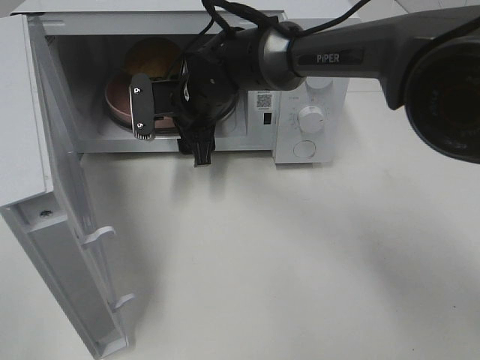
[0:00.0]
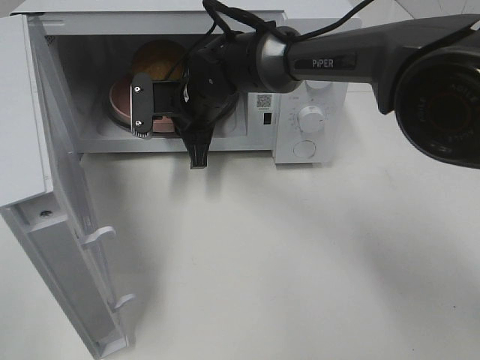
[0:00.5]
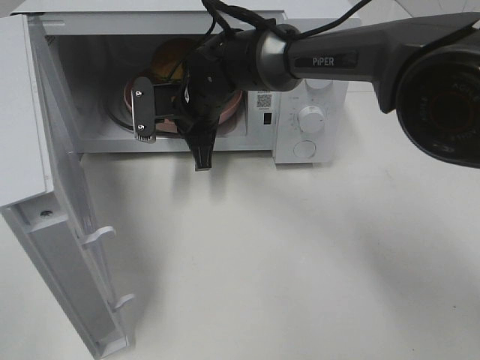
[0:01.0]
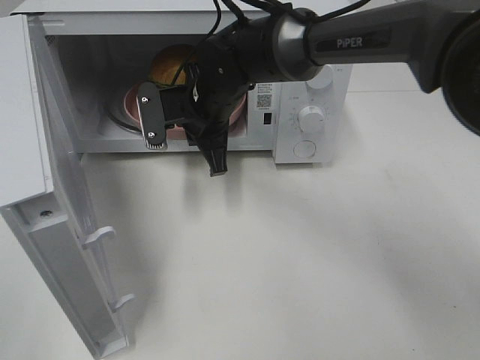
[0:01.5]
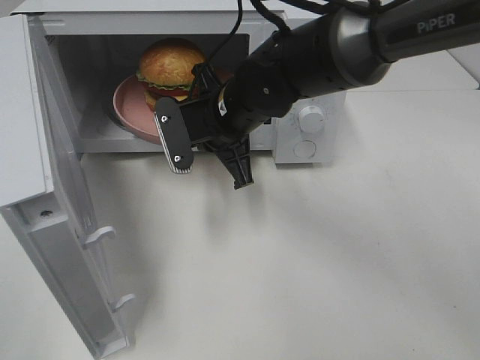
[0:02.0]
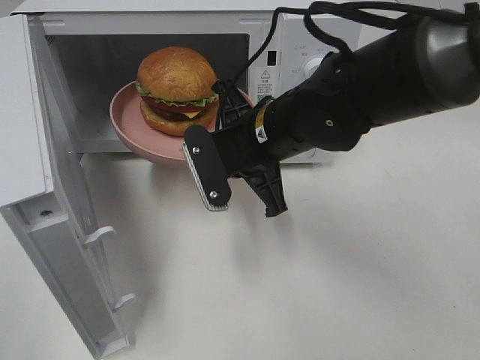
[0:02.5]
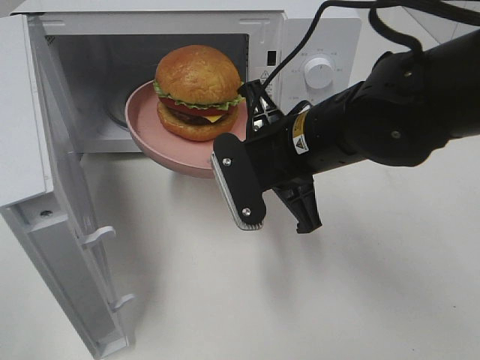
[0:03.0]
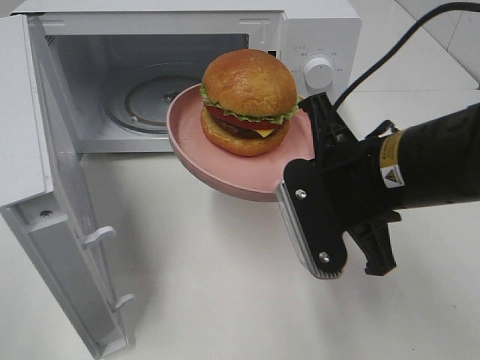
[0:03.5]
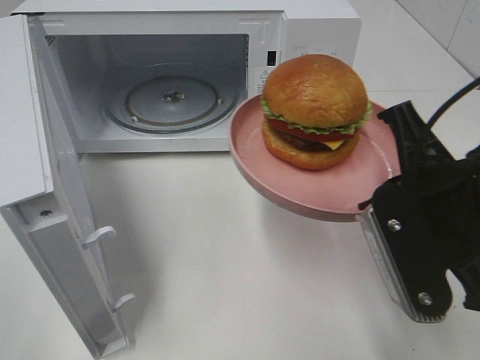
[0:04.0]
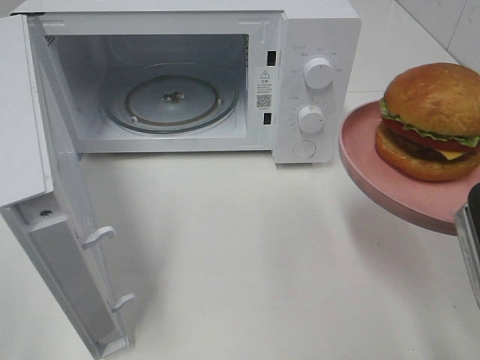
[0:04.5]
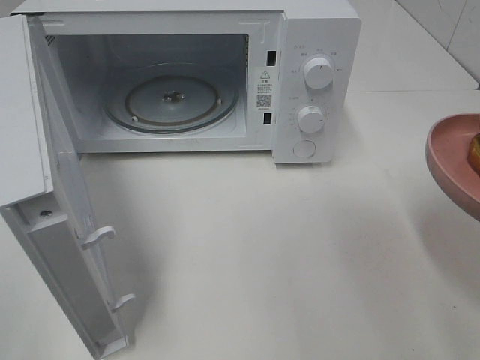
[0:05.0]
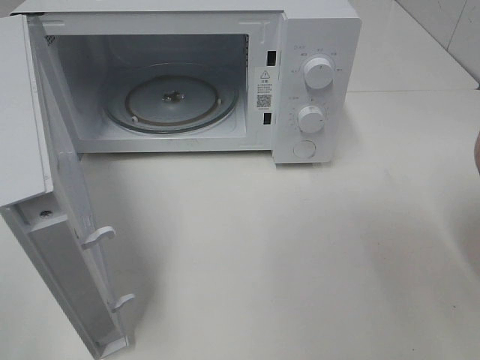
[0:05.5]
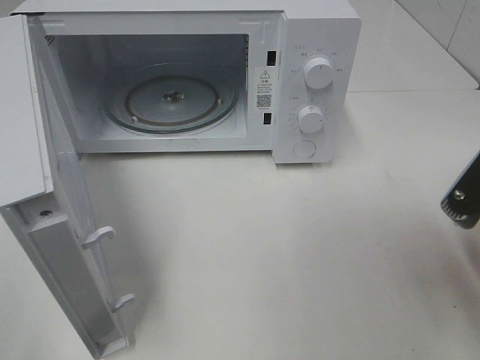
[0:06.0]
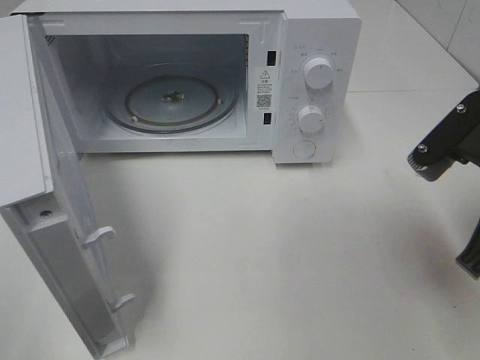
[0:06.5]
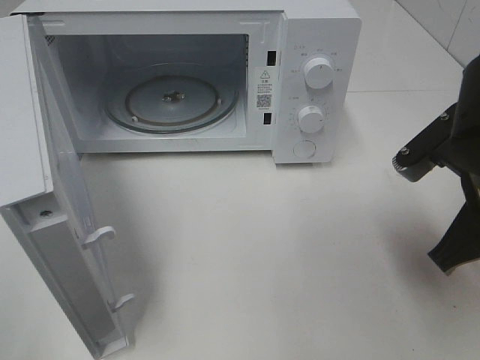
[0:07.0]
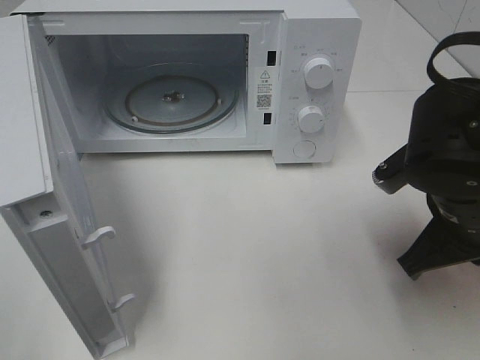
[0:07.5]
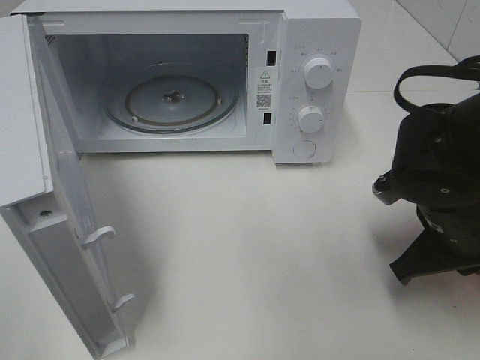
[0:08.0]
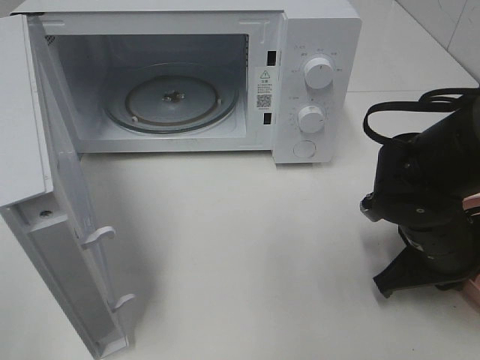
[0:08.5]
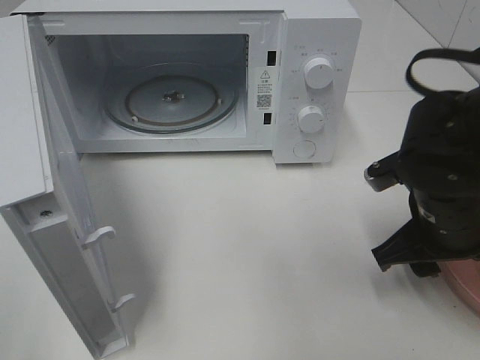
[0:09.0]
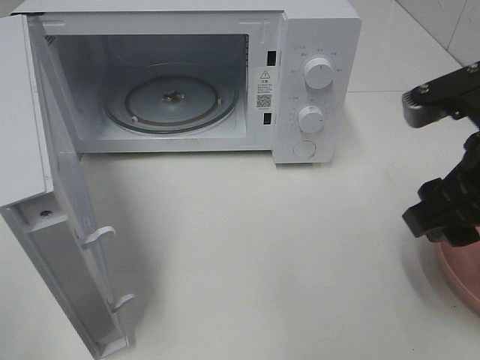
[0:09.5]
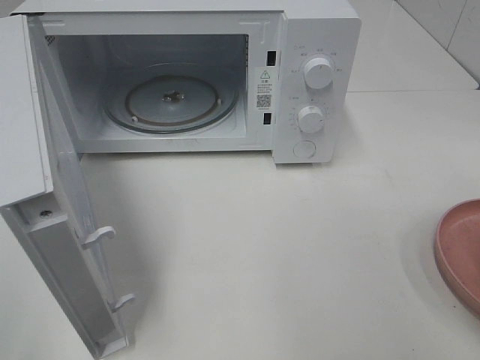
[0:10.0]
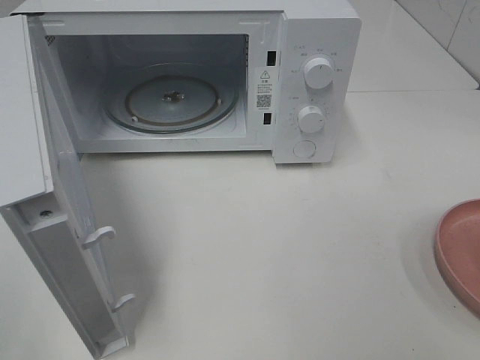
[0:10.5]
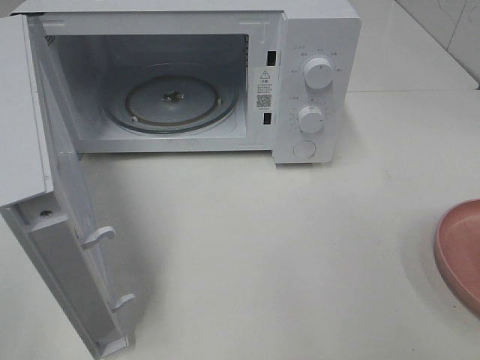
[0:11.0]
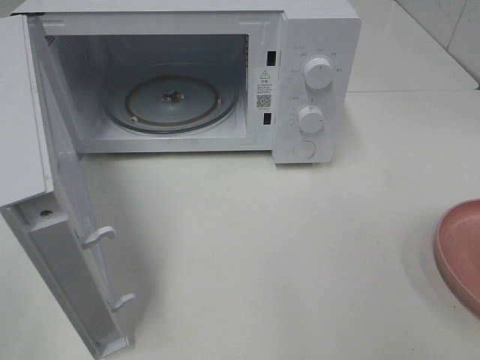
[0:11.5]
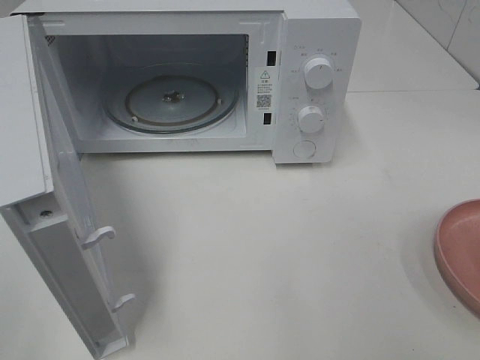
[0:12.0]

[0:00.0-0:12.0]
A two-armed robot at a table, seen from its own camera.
Task of the whole recording: Heat the burger.
Step, 0:01.0 to 0:08.5: Right hand: place the plate on the table.
0:00.0 to 0:02.0: The right gripper shifts approximately 5 cm backward, and closes up.
0:02.0 to 0:04.0: The right gripper shifts about 25 cm backward and to the right.
0:04.0 to 0:06.0: The right gripper goes some 5 cm to the right.
0:06.0 to 0:08.0: The right gripper goes about 10 cm downward and forward.
0:08.0 to 0:10.0: The right gripper is displaced upward and backward by roughly 25 cm, and opens its fingers.

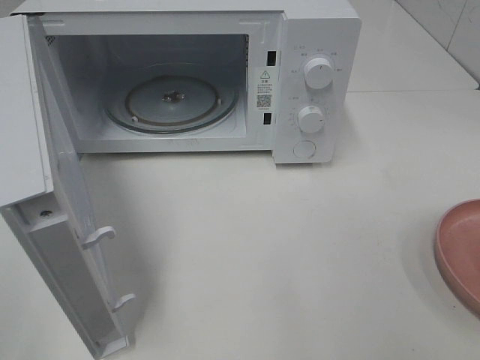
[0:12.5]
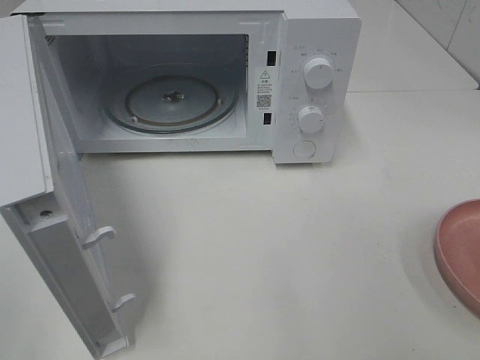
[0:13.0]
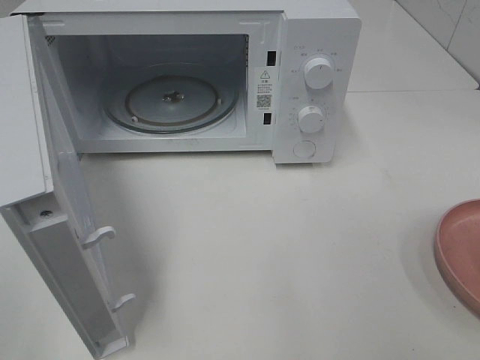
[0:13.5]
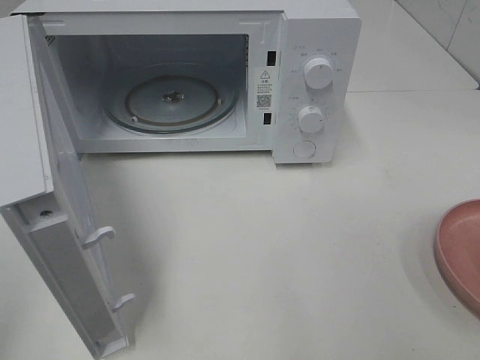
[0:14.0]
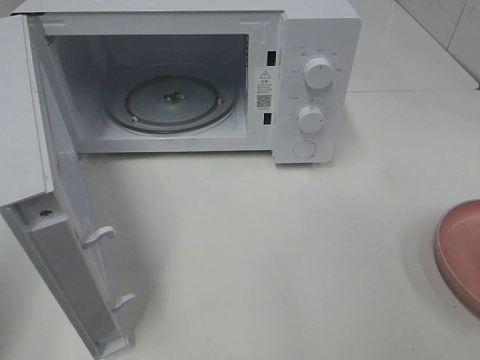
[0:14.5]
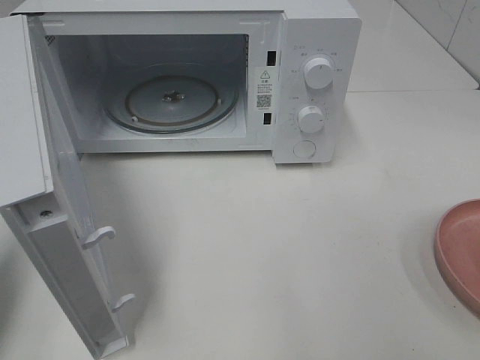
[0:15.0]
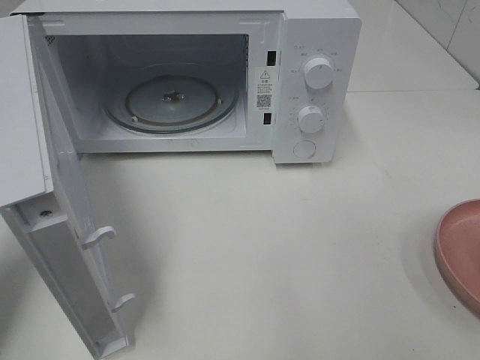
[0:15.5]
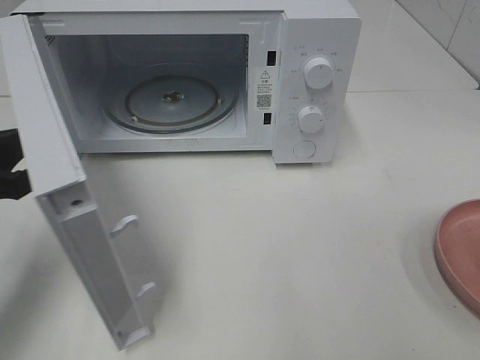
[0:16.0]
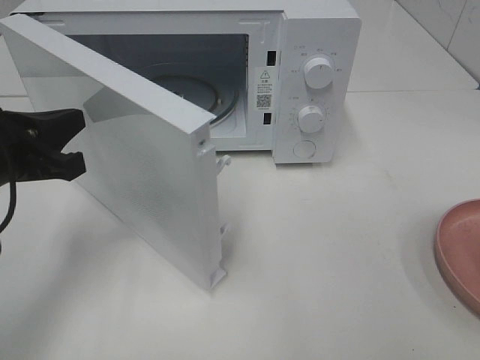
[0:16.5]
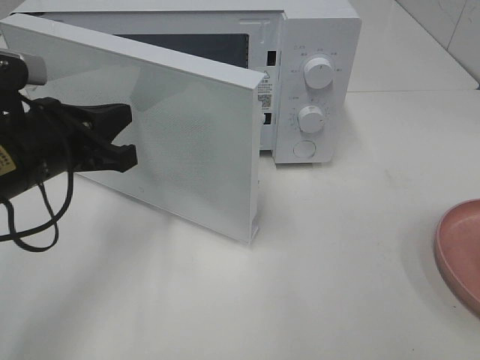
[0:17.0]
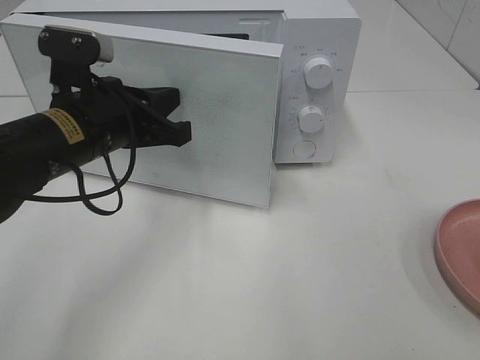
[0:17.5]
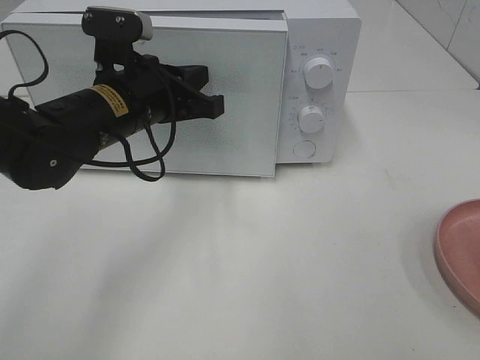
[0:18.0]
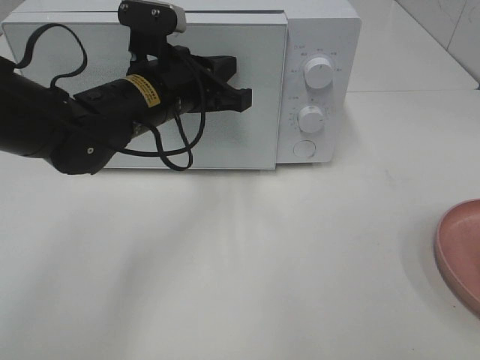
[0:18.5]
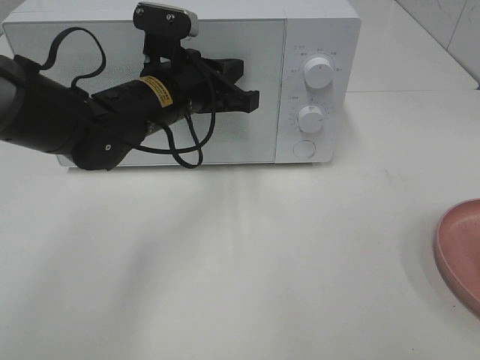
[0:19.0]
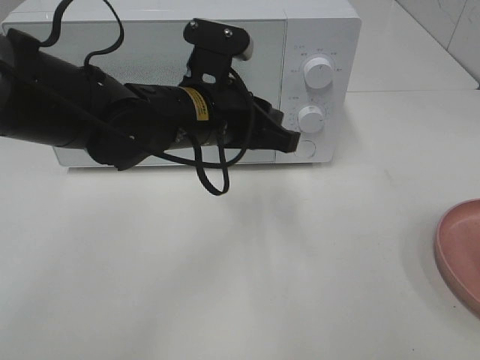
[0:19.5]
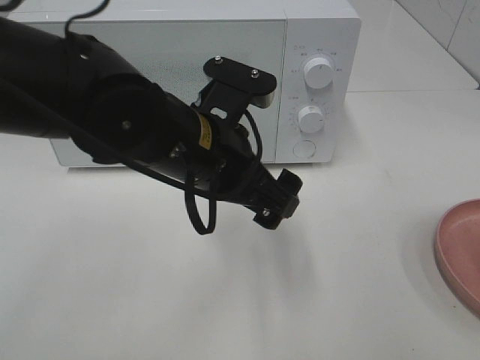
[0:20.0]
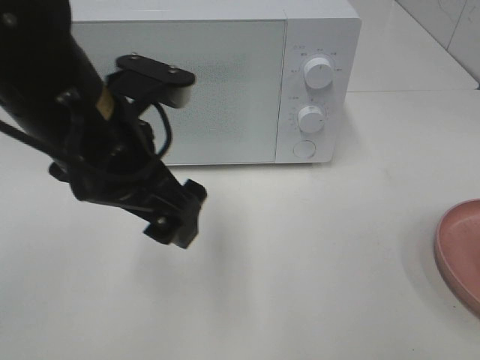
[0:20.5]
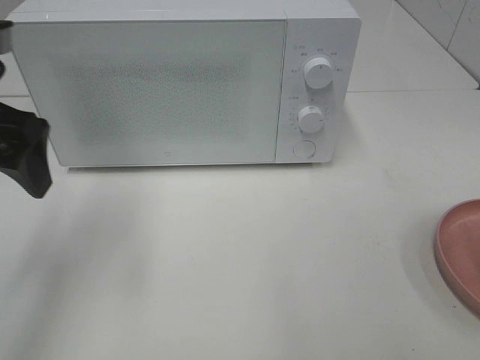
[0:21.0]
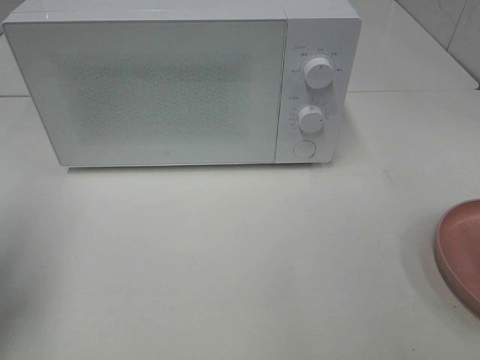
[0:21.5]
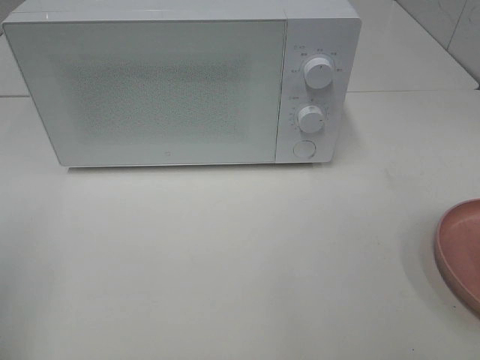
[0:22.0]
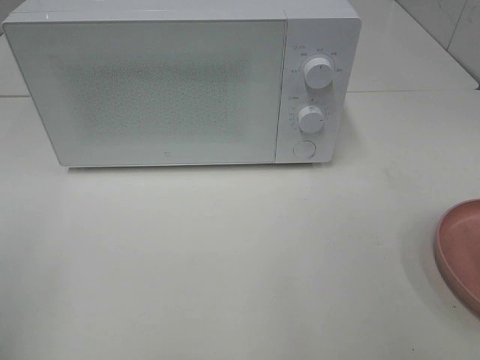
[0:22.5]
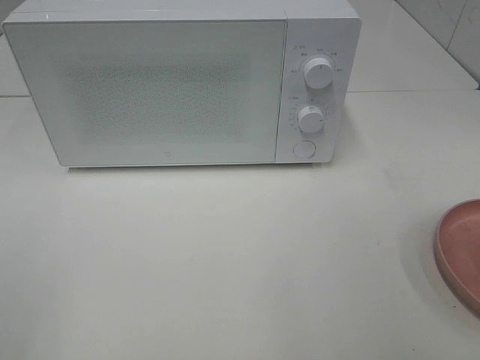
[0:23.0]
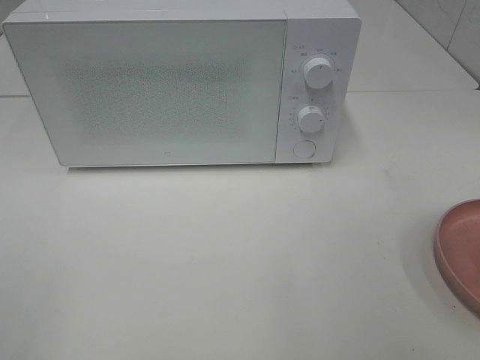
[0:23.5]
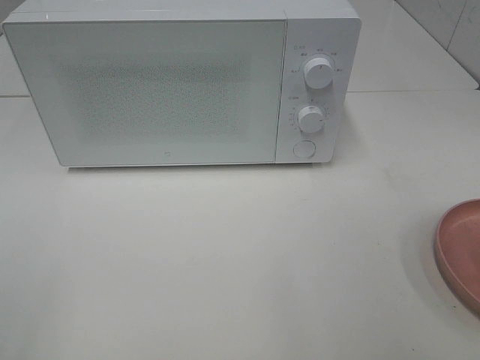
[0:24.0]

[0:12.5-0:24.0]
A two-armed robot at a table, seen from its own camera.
Task of the whole recording: Heat the burger.
Step, 0:12.5 to 0:19.0: Left hand: close the microwave door.
0:14.5 to 0:16.5: The left gripper is displaced forward, downward and to the right by about 20 cm.
0:16.5 to 0:18.5: The left gripper heads to the right and forward, covering roughly 20 cm.
0:18.5 to 0:20.0: The left gripper travels backward by approximately 10 cm, and opens up.
0:20.0 to 0:22.0: The left gripper is displaced to the left and backward by roughly 30 cm.

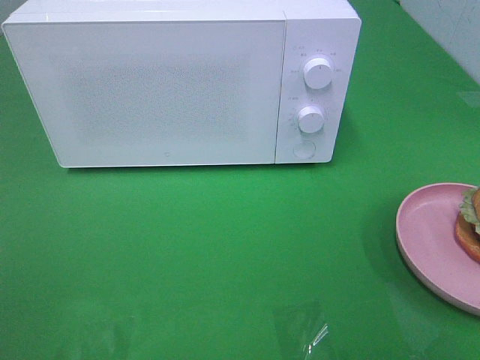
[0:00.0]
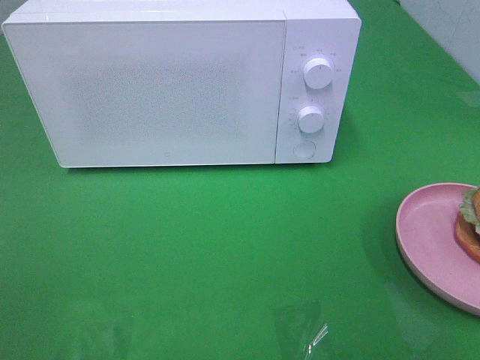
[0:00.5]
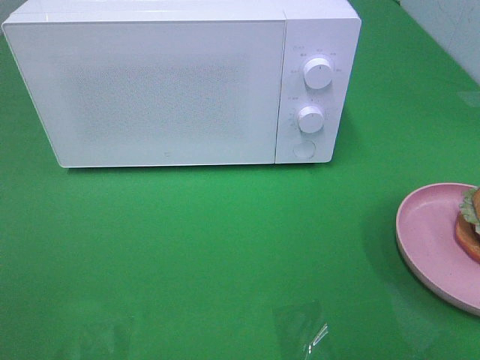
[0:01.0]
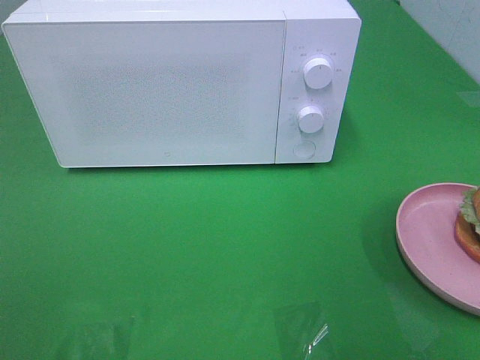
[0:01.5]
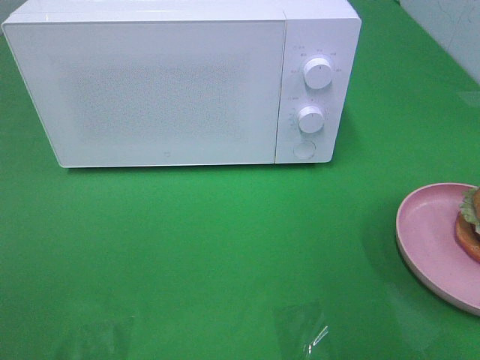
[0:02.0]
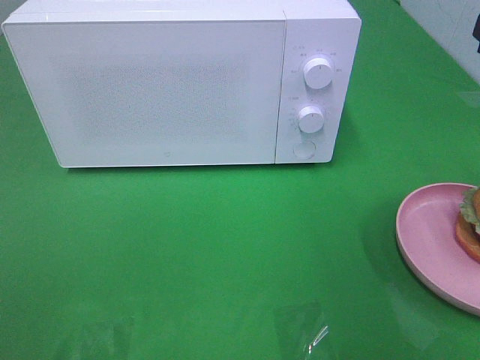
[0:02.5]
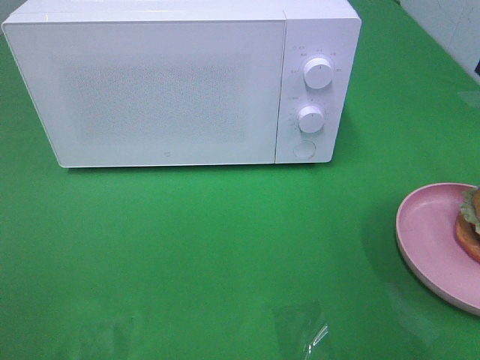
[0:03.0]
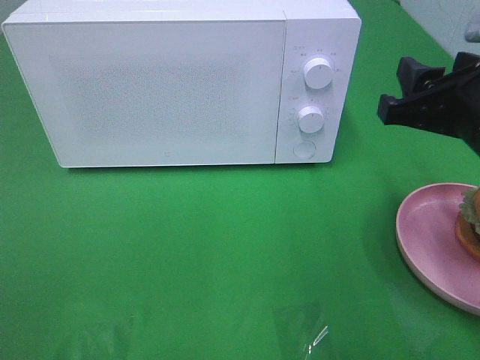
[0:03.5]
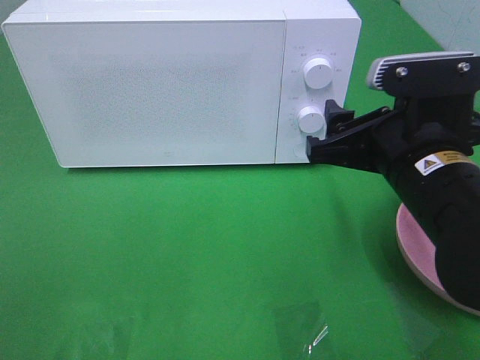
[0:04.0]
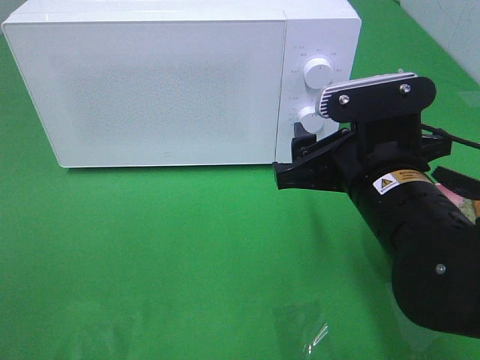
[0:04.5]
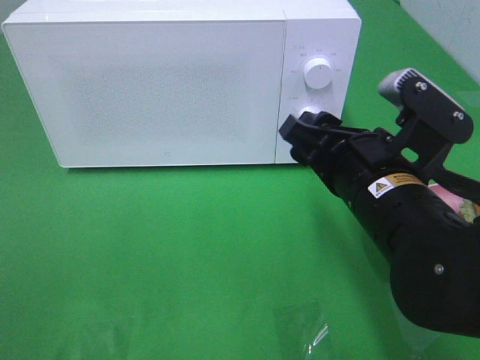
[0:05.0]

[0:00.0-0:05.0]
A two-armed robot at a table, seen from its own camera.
Task of the whole recording: Heat the burger.
0:02.5 to 0:05.0: The right gripper is displaced to the left and downward by some 20 cm.
